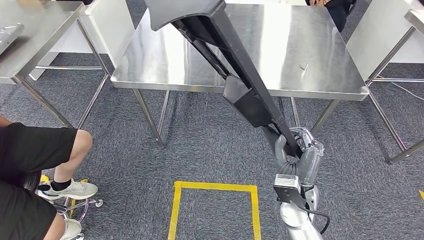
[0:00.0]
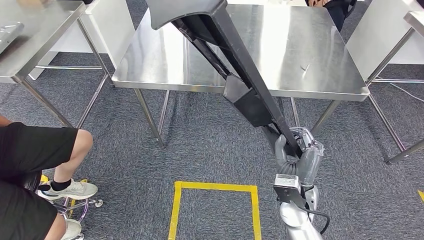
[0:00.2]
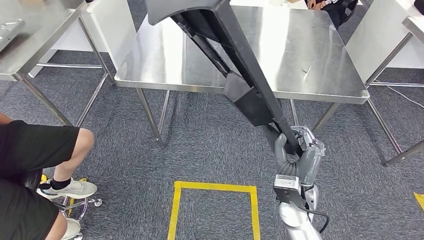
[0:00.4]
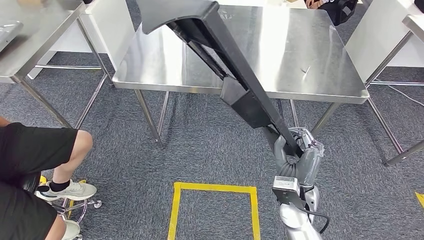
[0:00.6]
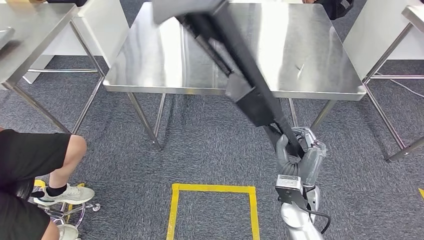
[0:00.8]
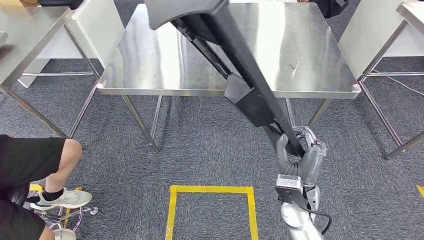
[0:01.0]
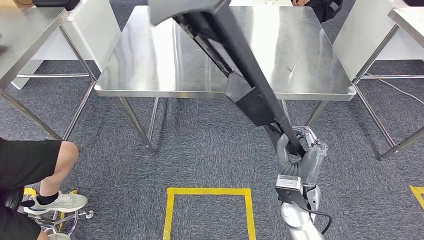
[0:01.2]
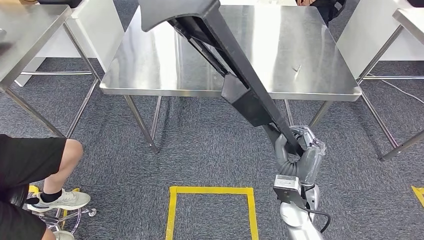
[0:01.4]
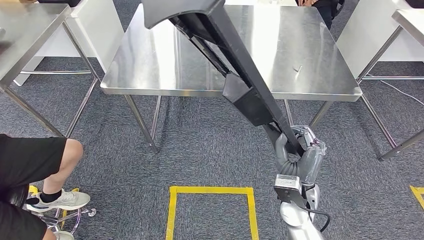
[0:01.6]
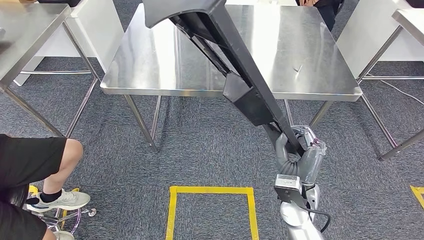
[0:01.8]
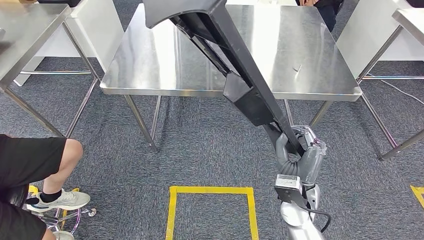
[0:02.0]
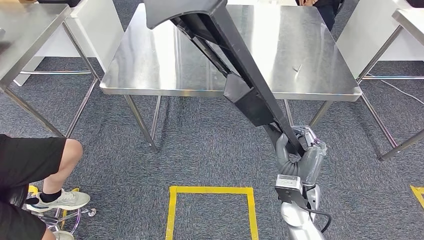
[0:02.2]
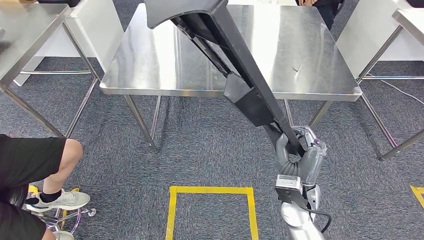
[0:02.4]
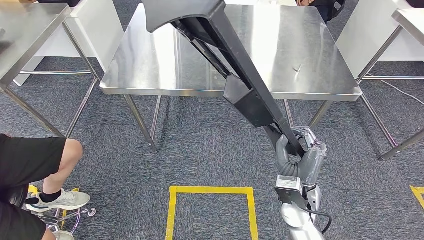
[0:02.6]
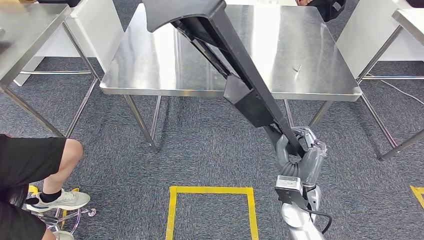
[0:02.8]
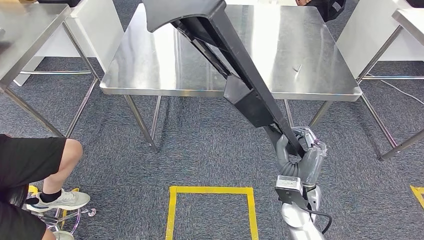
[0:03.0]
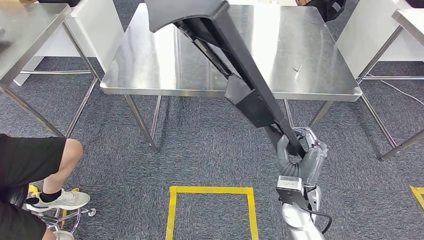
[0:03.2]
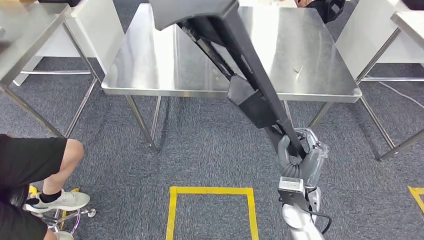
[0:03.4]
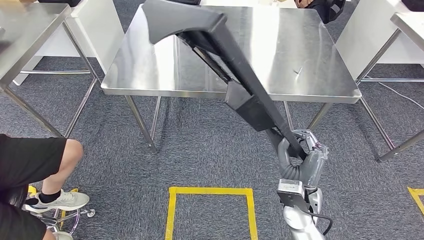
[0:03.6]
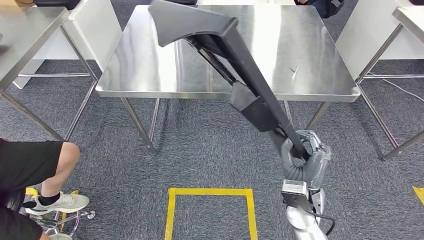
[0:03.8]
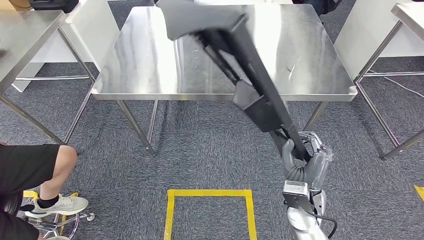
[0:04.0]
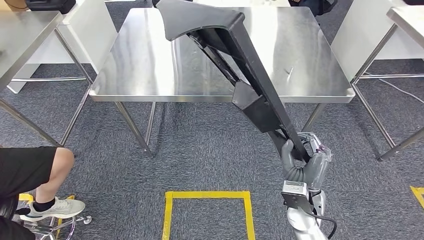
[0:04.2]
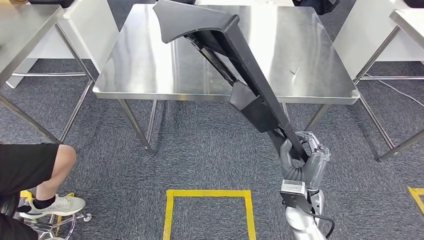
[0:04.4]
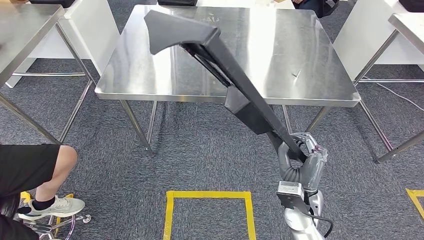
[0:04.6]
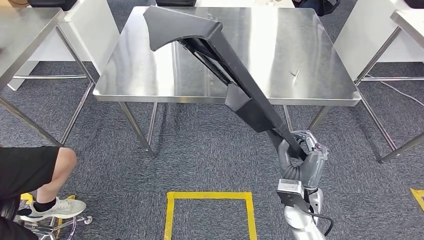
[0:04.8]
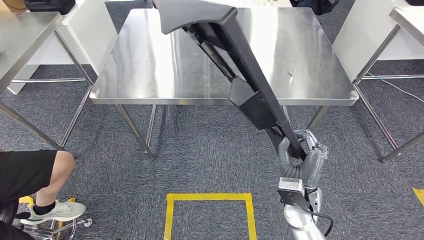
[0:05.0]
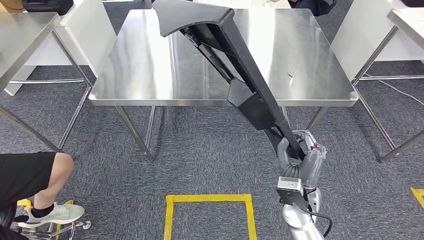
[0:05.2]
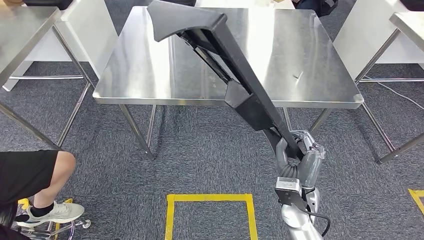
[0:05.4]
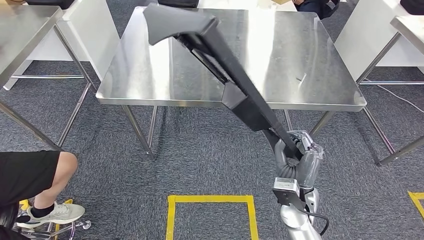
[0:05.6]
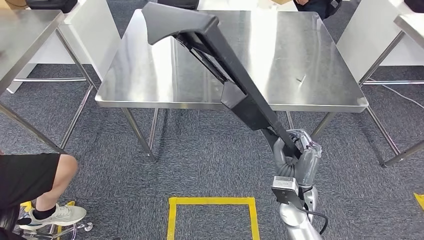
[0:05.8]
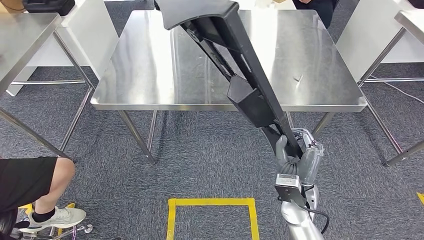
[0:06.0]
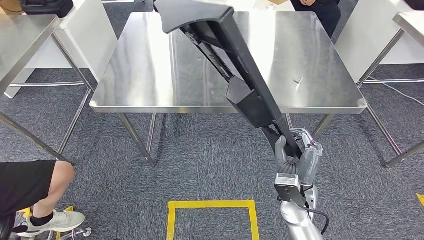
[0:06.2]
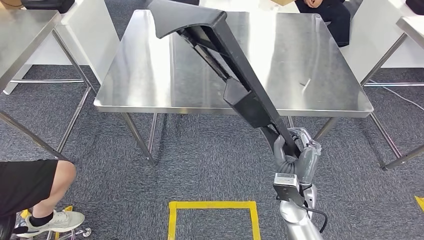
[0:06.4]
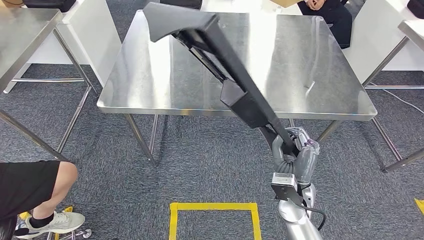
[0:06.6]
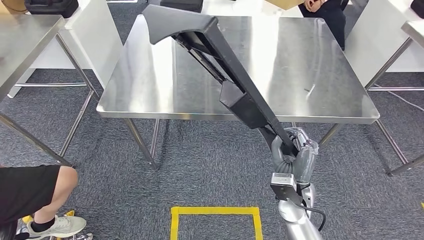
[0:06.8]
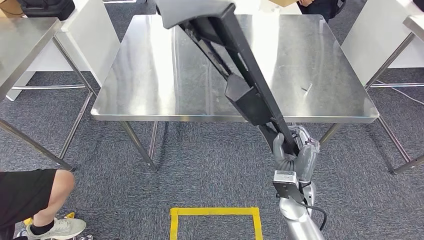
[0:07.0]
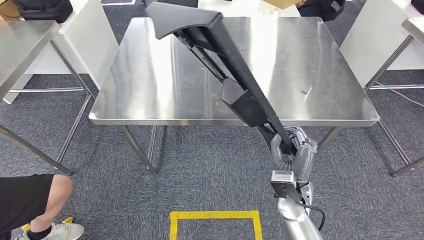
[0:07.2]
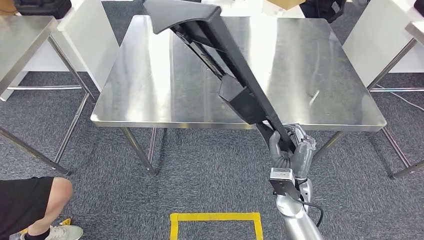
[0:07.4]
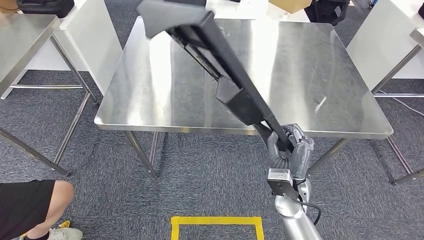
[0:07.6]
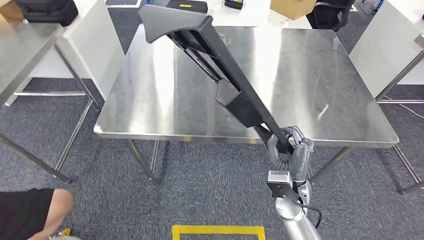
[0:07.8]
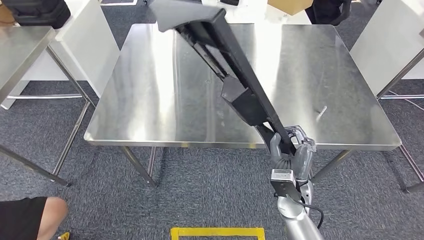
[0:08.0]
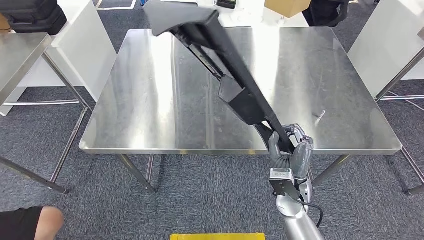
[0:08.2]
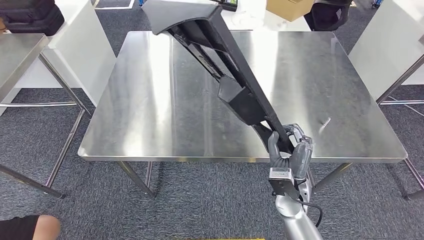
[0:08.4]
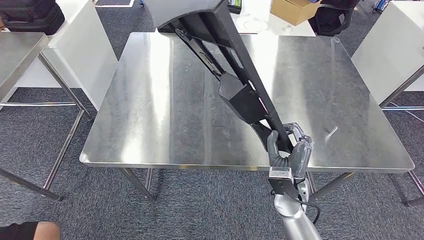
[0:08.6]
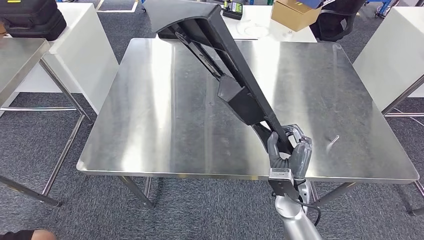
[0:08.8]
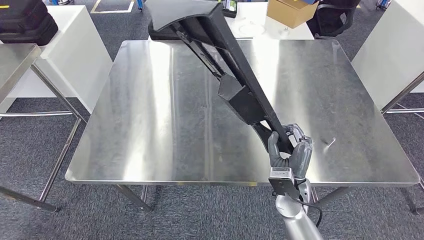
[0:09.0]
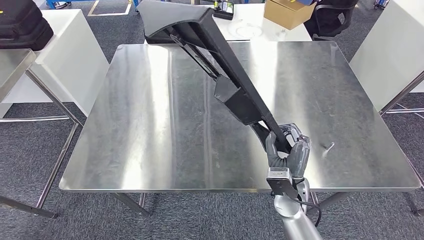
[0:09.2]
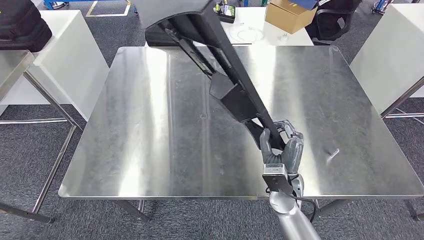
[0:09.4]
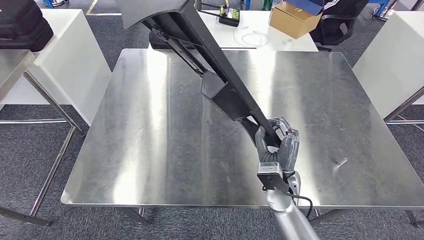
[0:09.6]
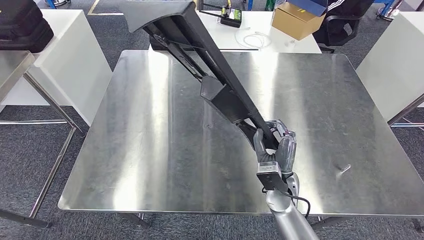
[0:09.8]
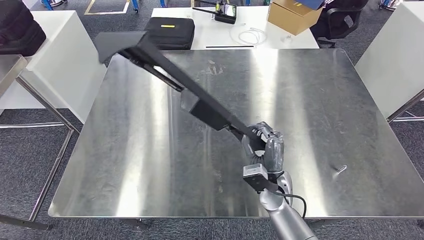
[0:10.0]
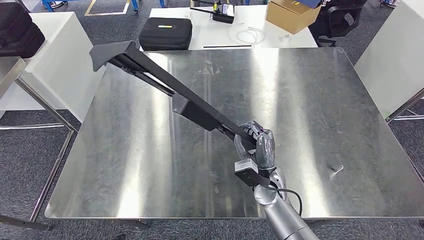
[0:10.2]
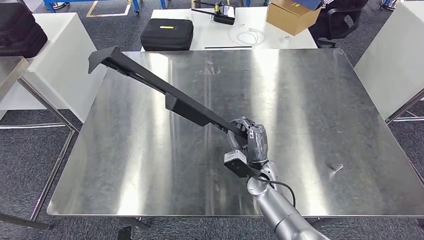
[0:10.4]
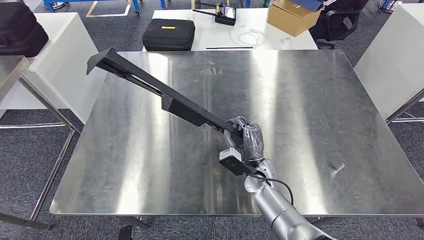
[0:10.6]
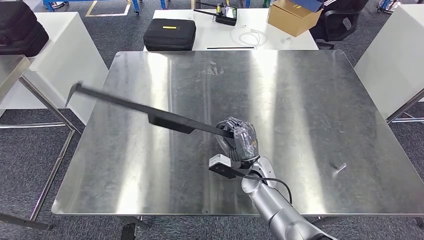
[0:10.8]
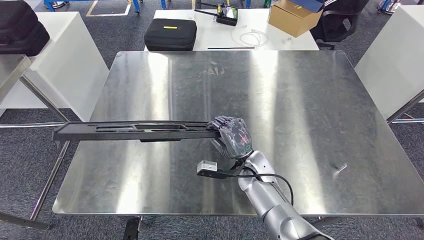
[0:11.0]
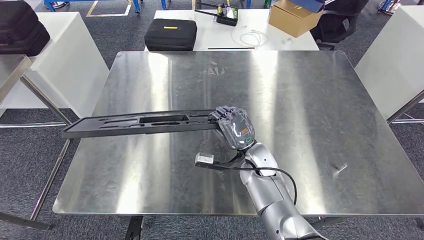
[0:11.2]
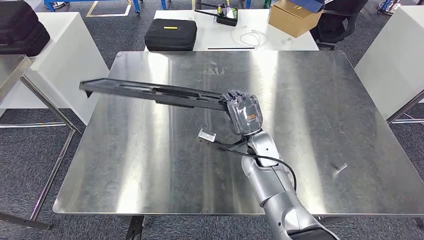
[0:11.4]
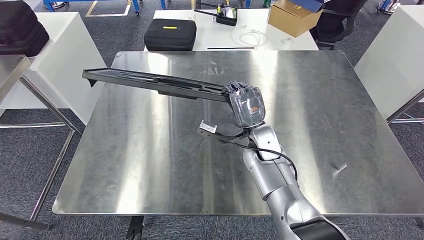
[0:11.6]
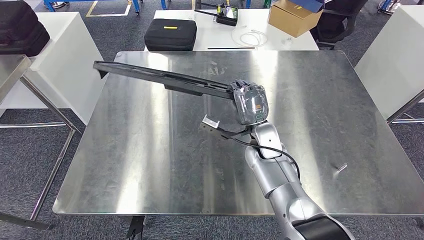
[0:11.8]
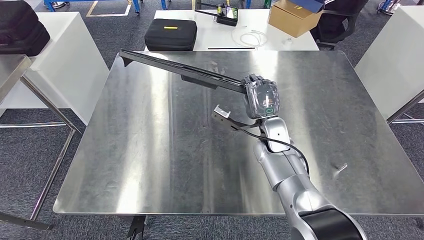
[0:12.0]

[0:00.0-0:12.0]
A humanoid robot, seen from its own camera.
0:01.6 to 0:03.0: Neither hand changes place.
0:10.4 to 0:12.0: The right hand travels upward and forward by approximately 15 cm.

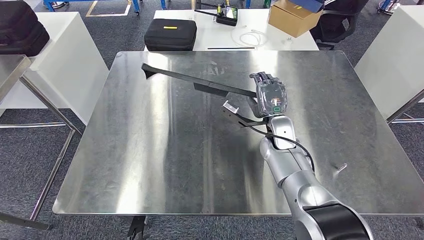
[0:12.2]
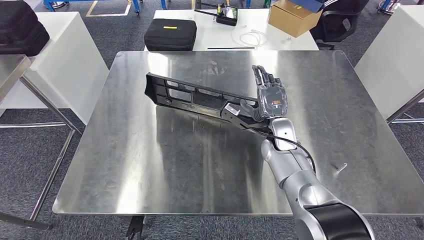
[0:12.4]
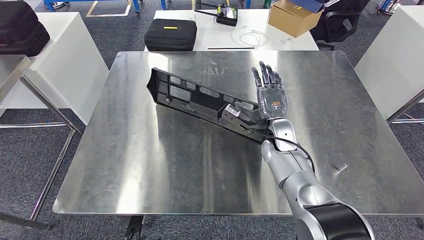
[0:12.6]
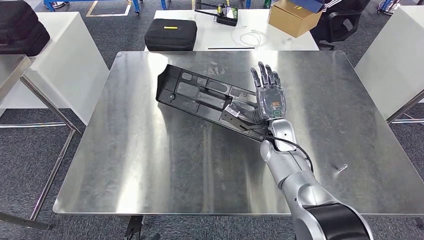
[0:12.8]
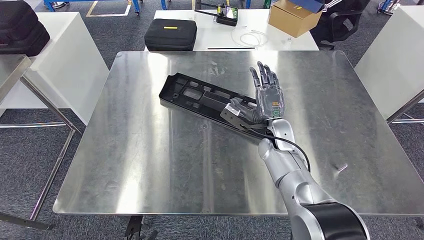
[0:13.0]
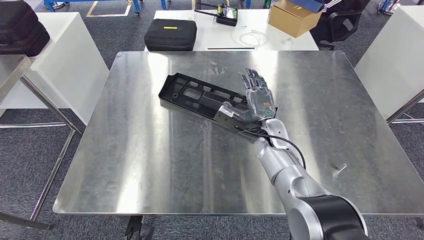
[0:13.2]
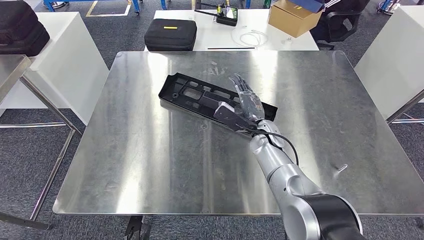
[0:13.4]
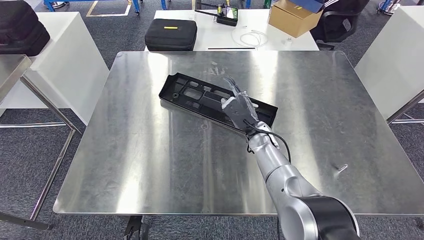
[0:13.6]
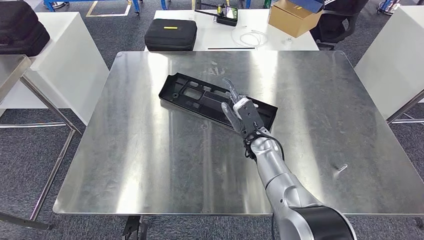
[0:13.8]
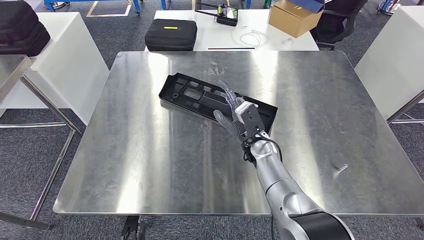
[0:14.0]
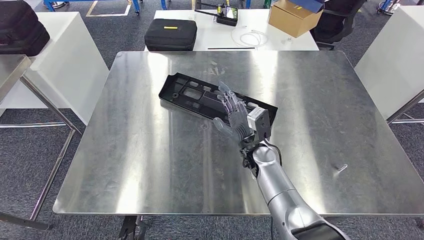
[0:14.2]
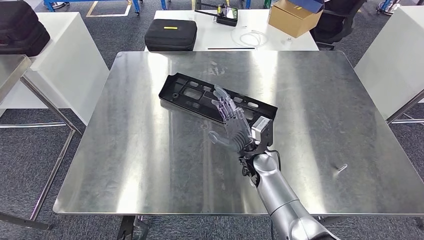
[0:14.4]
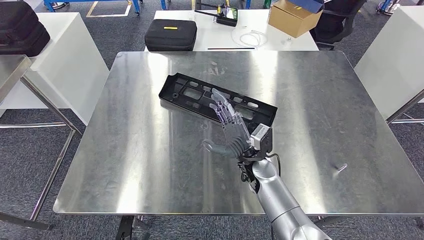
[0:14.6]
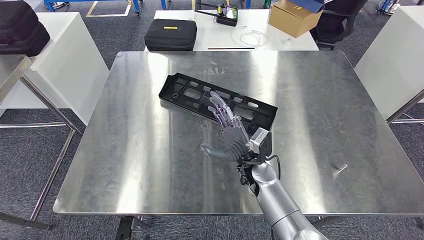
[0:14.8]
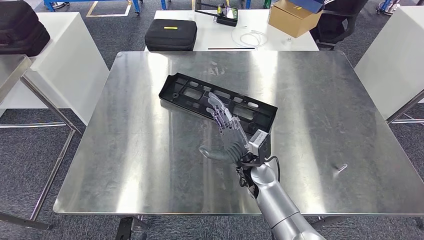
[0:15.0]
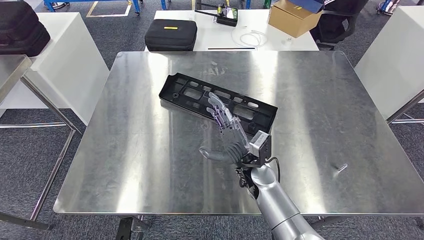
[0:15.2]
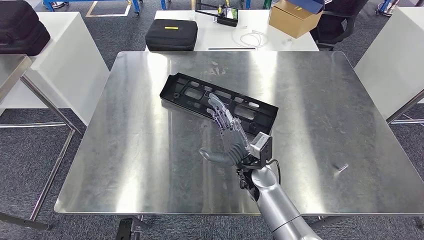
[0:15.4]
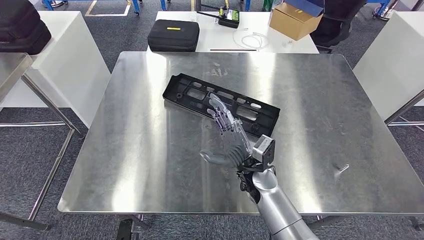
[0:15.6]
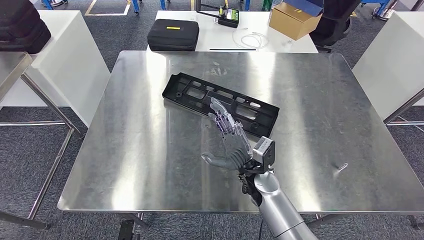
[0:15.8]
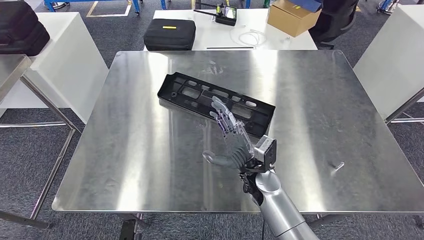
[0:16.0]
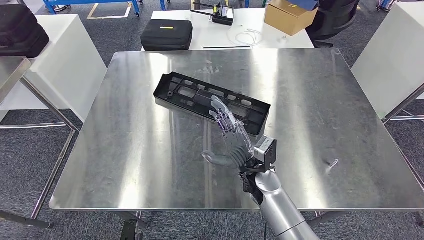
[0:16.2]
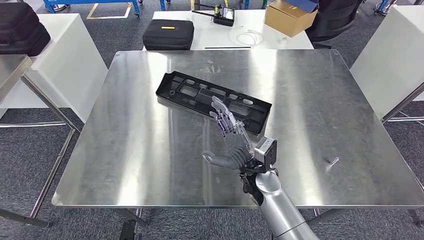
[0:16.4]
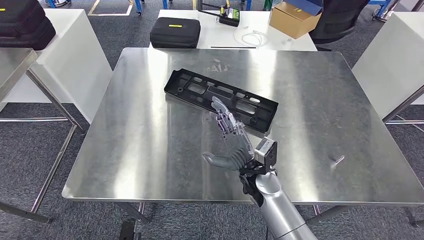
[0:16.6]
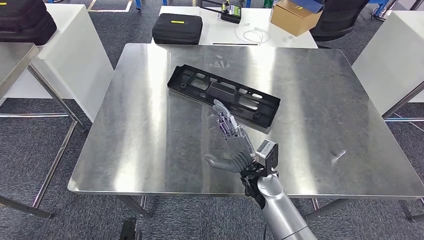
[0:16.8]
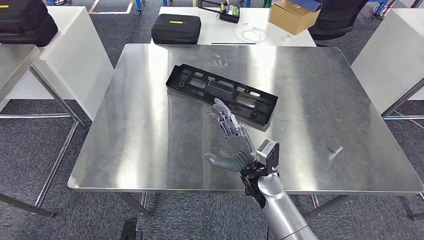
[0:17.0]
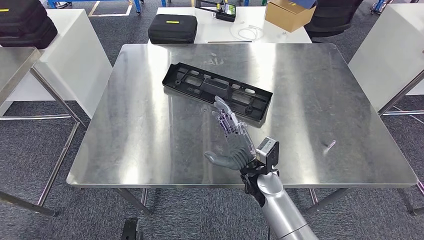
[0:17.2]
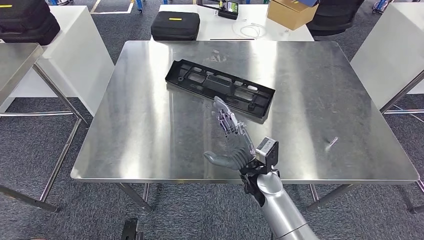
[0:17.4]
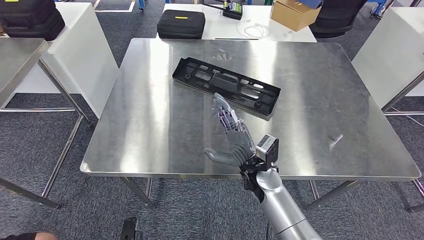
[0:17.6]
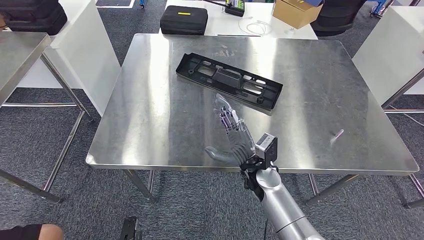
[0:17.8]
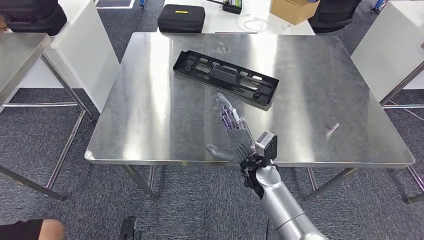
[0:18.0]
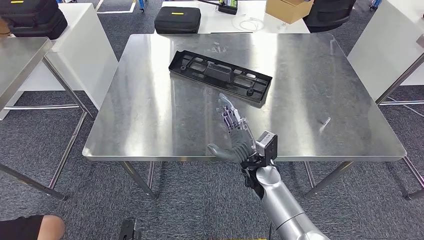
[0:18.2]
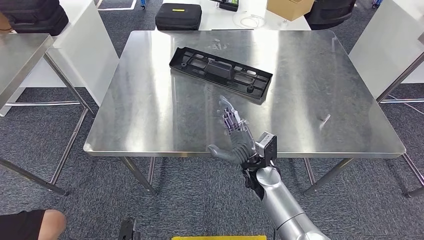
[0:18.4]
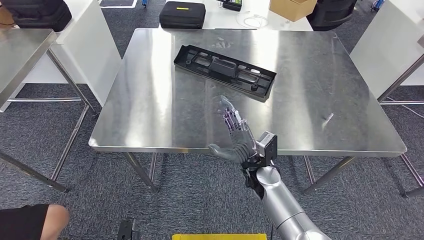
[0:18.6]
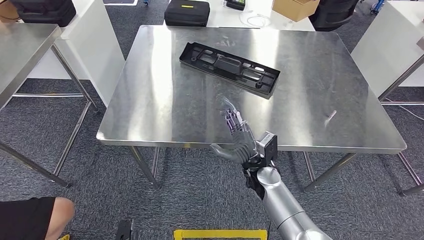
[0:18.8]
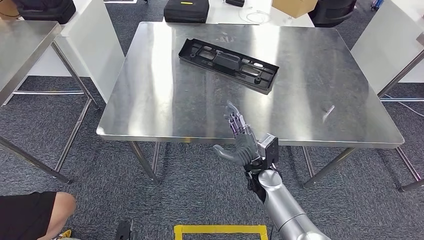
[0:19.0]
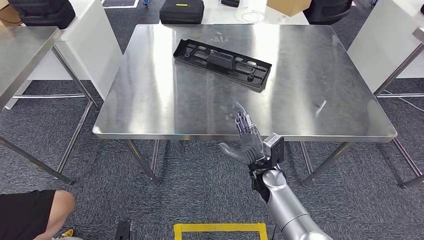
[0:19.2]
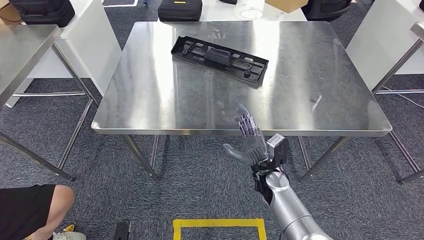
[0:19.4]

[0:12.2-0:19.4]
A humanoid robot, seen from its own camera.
0:13.6 to 0:15.0: The right hand moves backward, roughly 10 cm.
